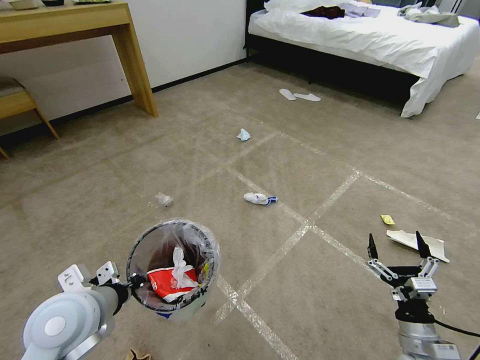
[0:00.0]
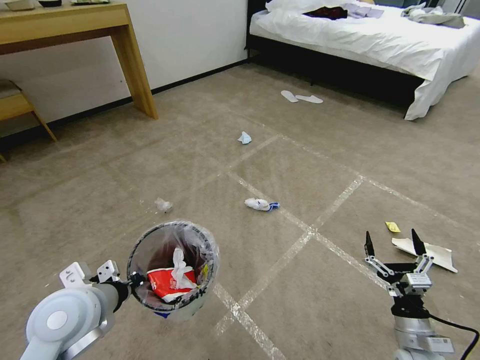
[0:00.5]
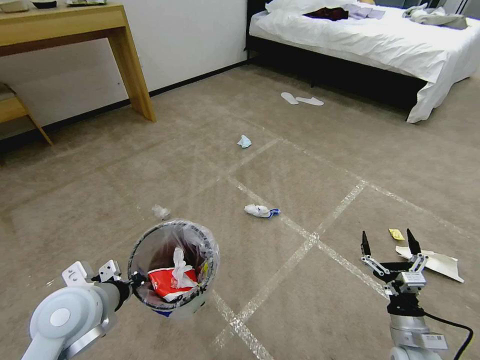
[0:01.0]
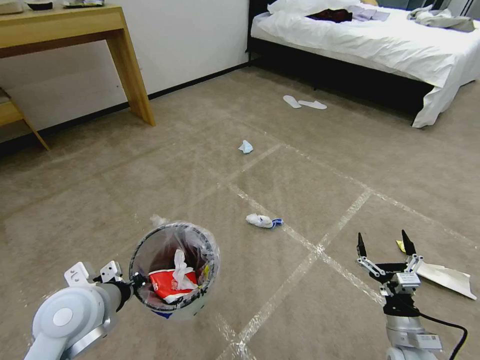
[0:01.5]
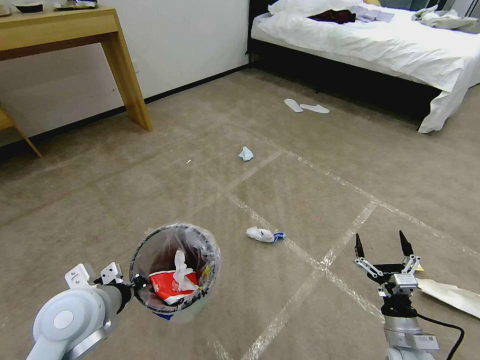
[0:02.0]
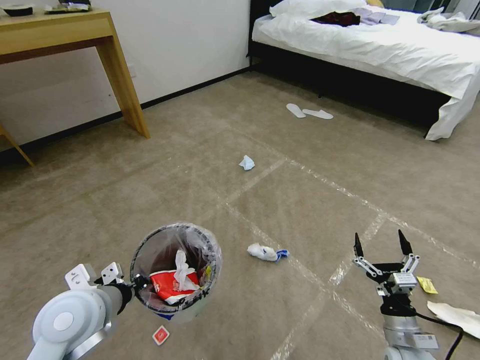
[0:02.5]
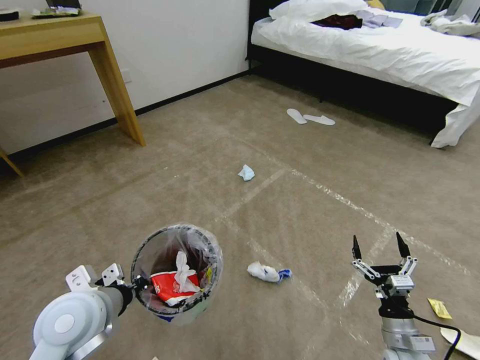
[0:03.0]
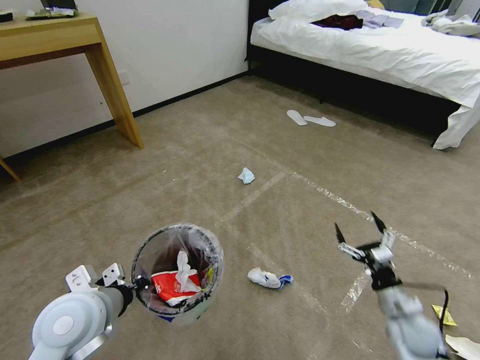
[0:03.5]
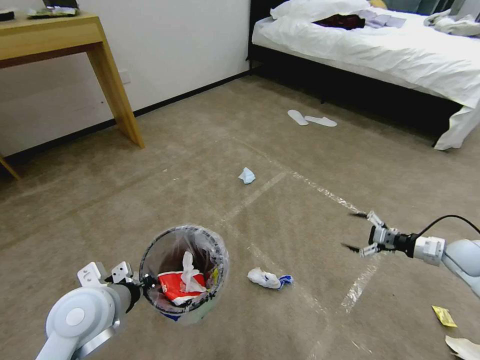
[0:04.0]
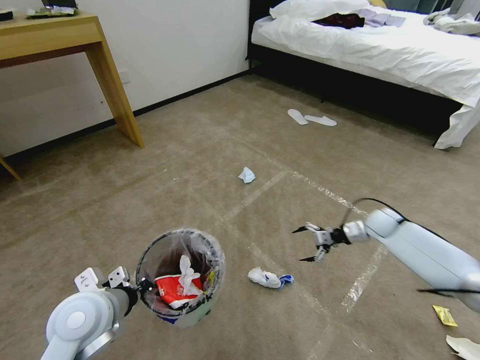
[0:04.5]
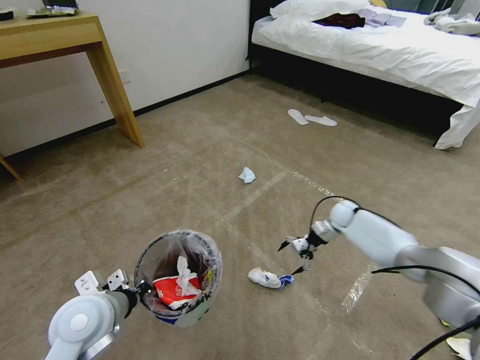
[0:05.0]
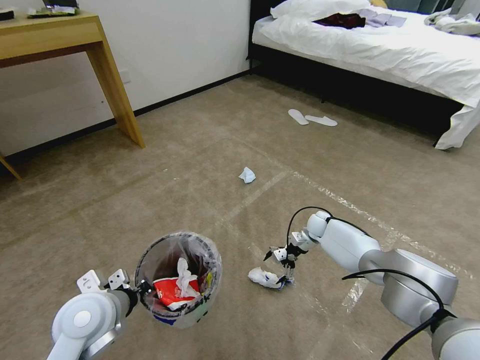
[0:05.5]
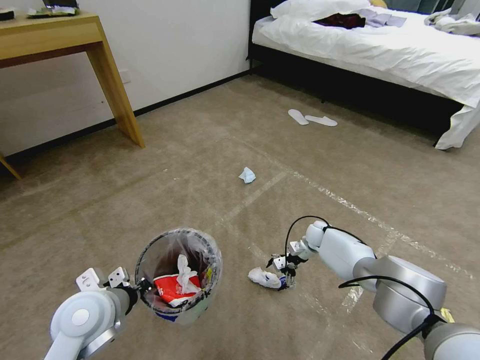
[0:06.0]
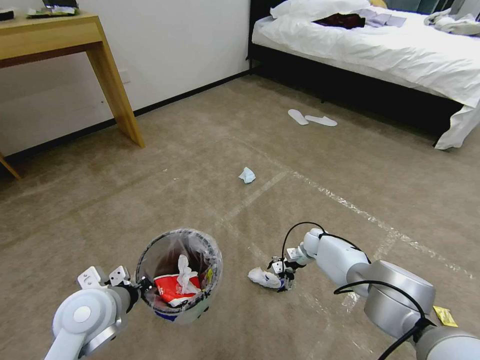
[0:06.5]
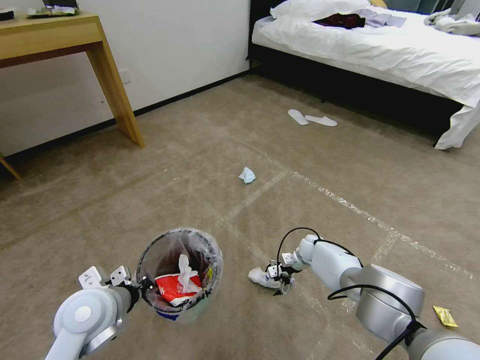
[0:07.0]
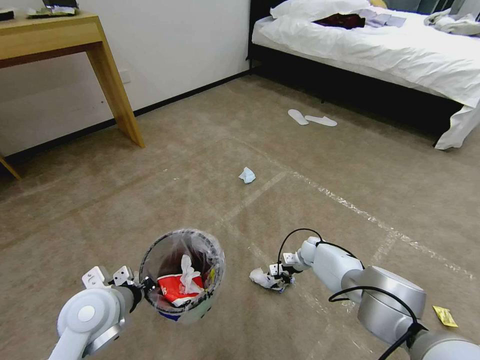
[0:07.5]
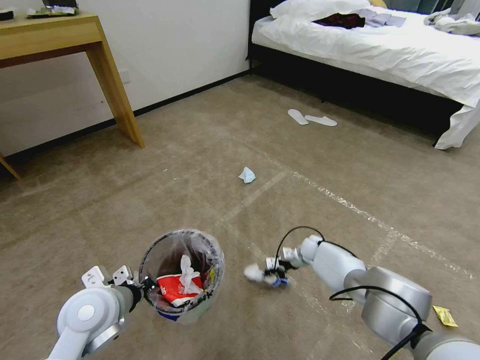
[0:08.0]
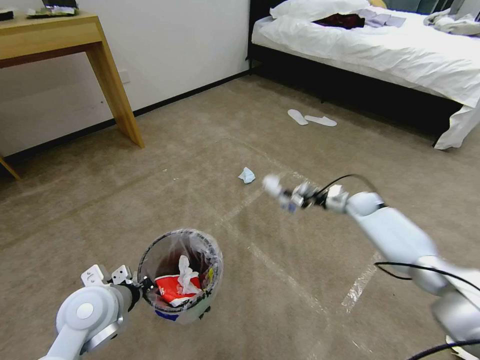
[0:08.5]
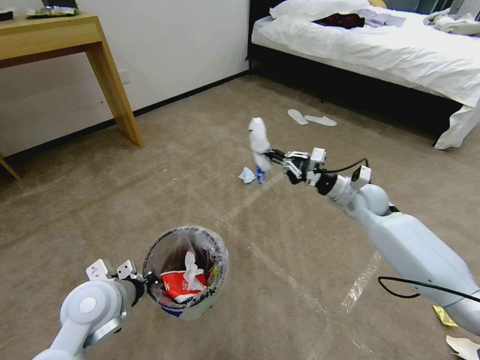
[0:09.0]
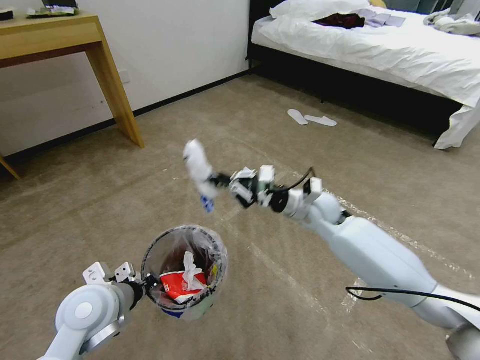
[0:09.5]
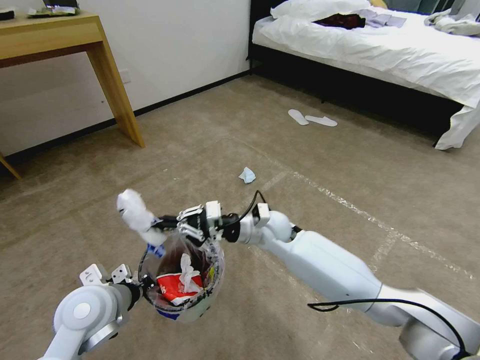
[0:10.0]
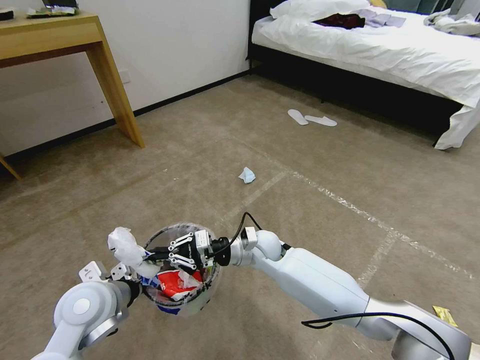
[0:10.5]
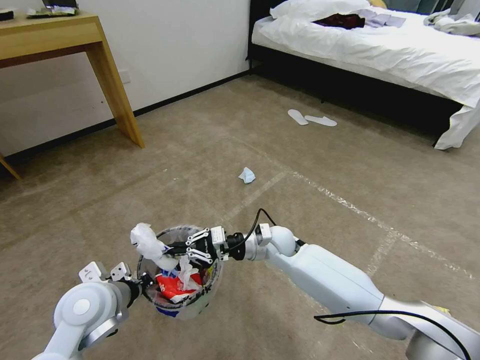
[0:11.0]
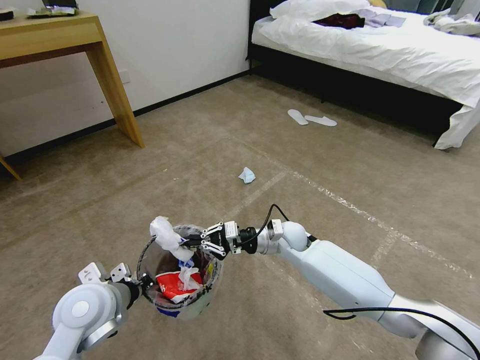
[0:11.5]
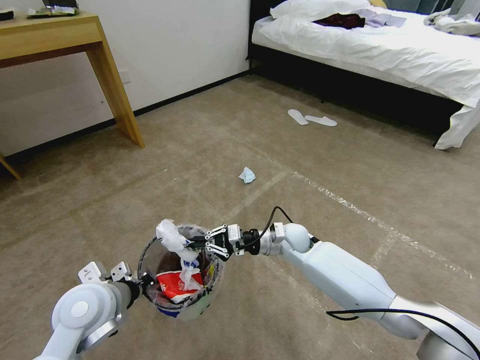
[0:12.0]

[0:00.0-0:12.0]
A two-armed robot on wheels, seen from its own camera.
Task of the whole recording: Pick up the trash bin and place the garbage on the floor into it.
0:02.0 to 0:04.0: The right gripper shifts roughly 30 cm forward, to the right and upward.
0:04.0 to 0:06.0: The right gripper is displaced to the left, forward and downward by roughly 35 cm.
0:06.0 to 0:08.0: The right gripper closes.
0:08.0 to 0:10.0: The right gripper travels upward and to the left by approximately 30 cm.
0:10.0 to 0:12.0: The right gripper moves to the right and downward, about 10 cm.

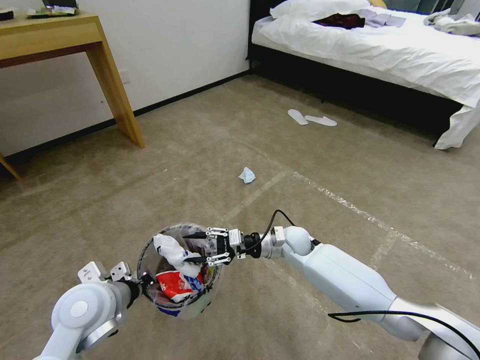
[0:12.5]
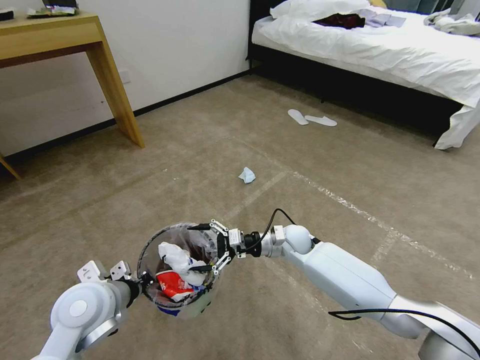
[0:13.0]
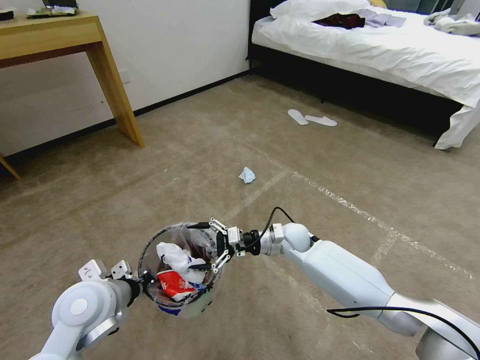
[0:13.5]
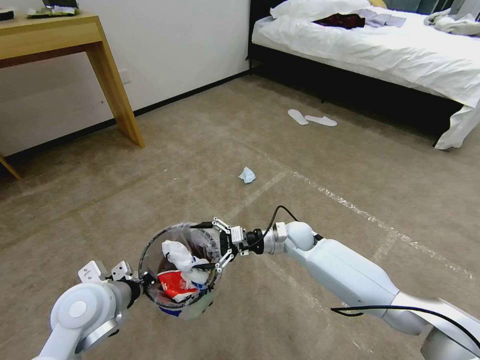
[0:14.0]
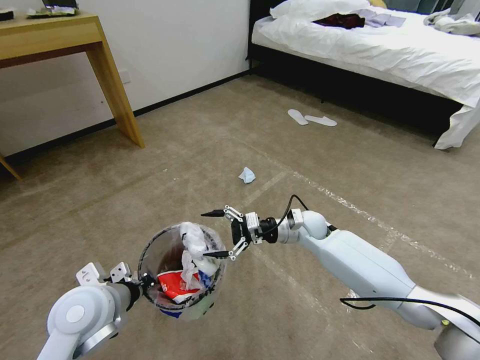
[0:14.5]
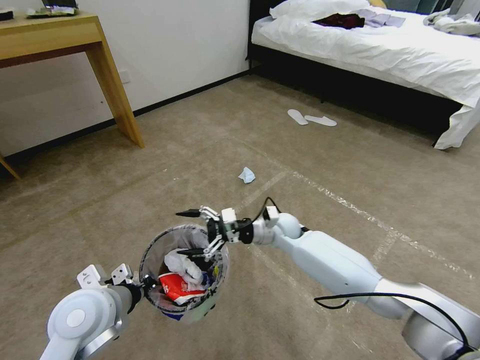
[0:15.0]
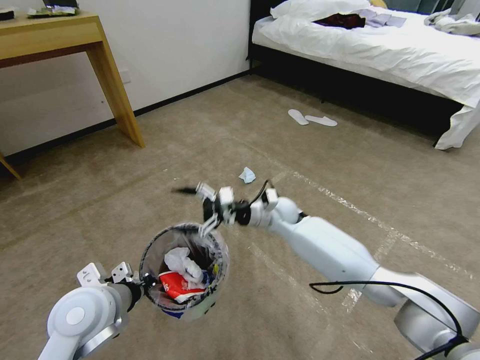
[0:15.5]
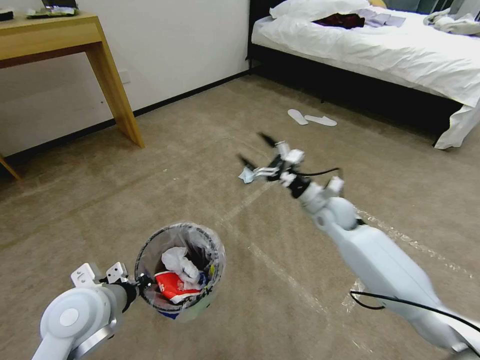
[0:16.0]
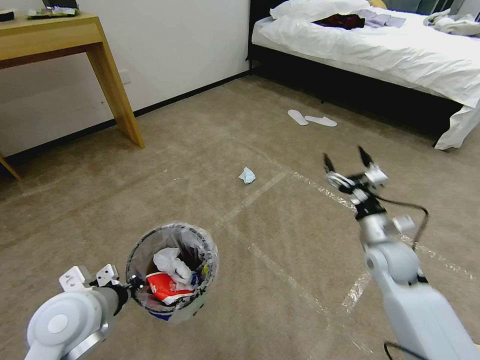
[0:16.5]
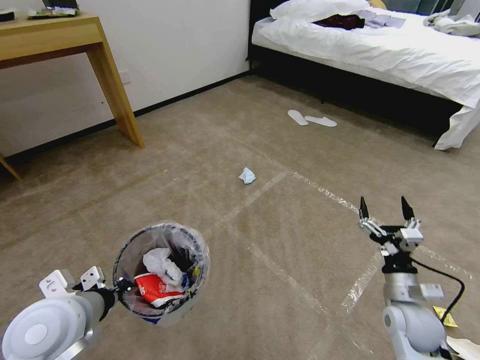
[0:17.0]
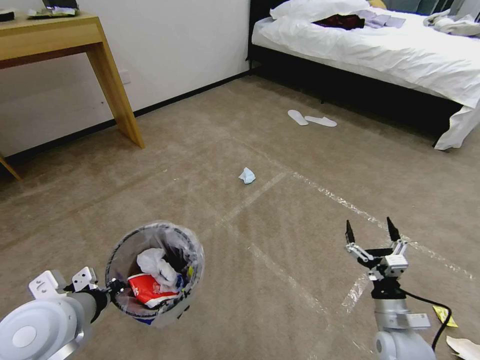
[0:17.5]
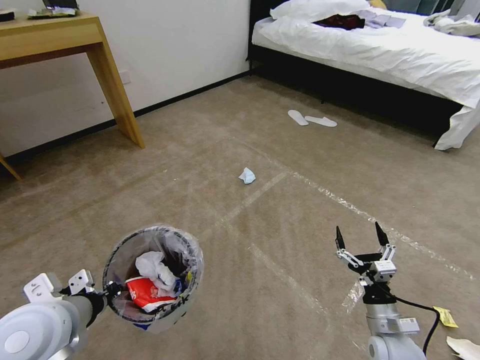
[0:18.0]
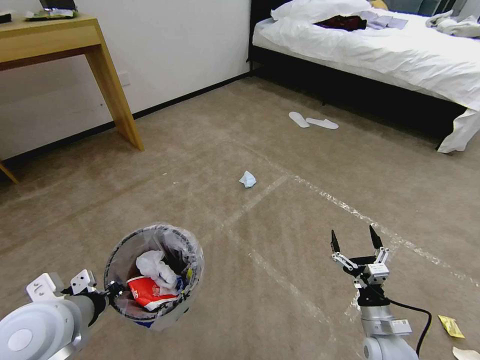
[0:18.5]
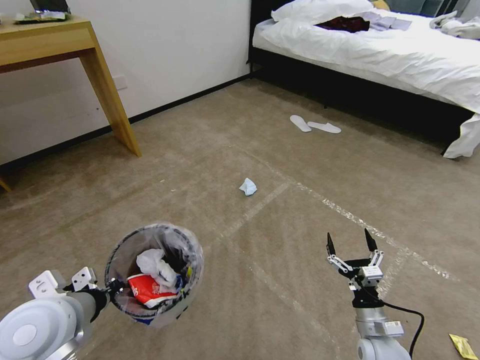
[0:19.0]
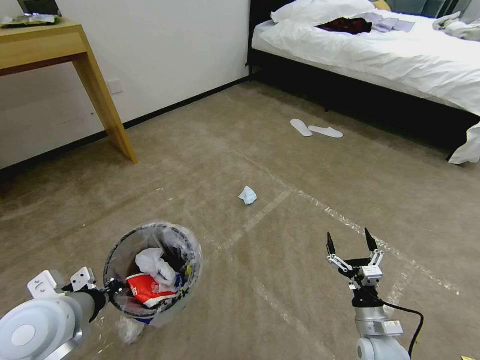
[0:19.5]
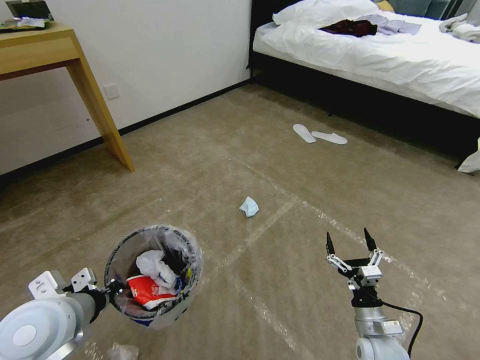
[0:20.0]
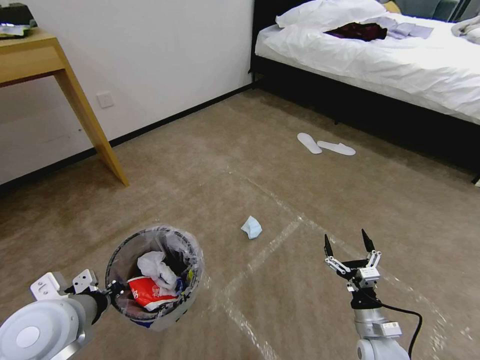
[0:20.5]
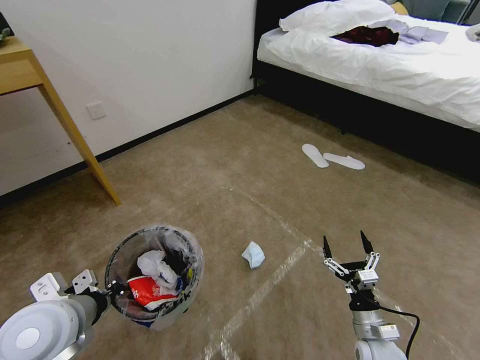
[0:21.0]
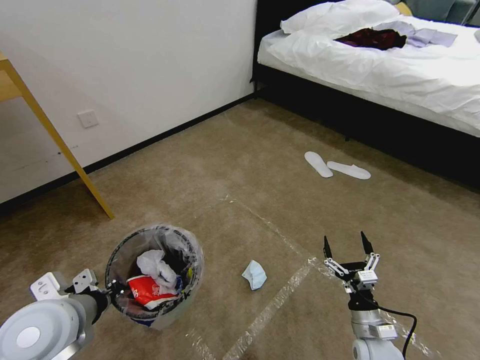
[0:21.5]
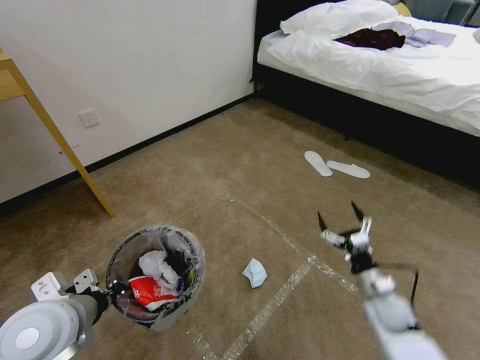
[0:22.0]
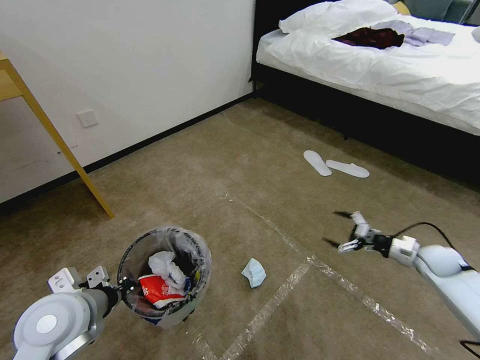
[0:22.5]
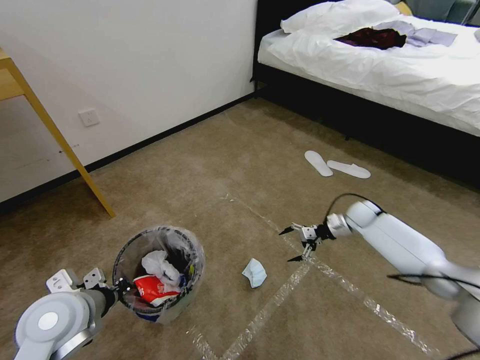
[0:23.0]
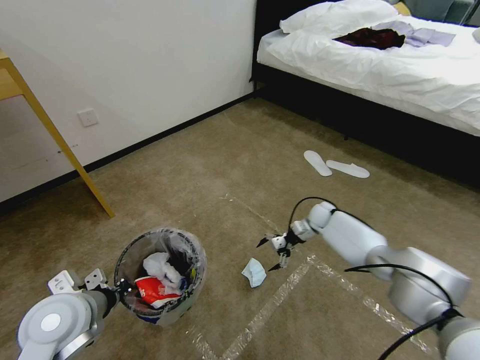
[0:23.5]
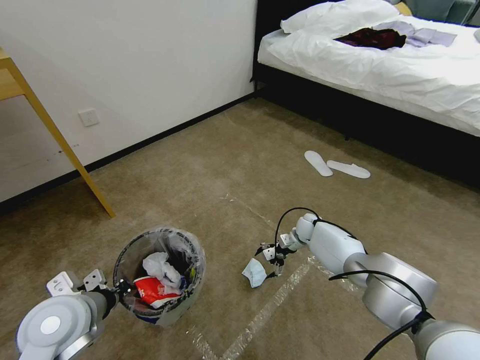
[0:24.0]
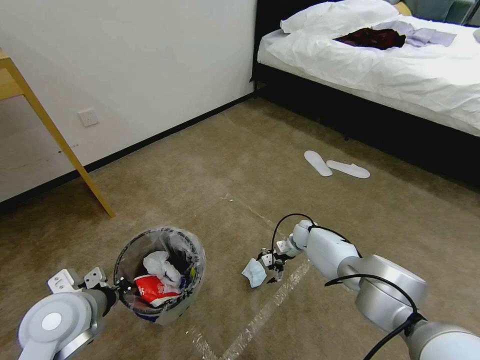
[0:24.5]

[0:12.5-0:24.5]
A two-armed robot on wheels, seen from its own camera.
Task of the whole recording: Pick up the trash bin and place the garbage on the floor into it.
0:12.5 to 0:14.5: The right gripper ends up some 5 cm from where it was, and opens its fingers.
0:14.5 to 0:16.5: The right gripper is displaced to the right and backward by some 20 cm.
0:16.5 to 0:18.5: The right gripper shifts some 20 cm backward and downward.
0:20.5 to 0:22.5: The right gripper goes some 30 cm to the right, forward and upward.
0:22.5 to 0:24.5: The right gripper goes about 30 cm to the left and forward.

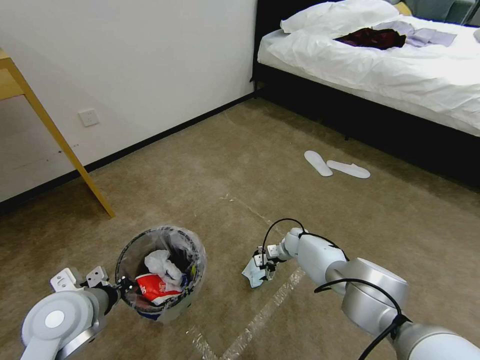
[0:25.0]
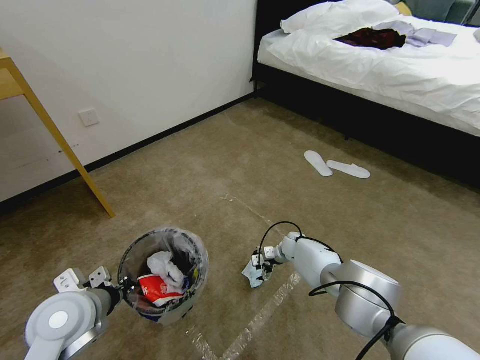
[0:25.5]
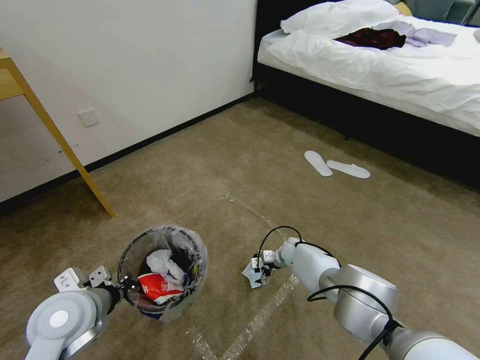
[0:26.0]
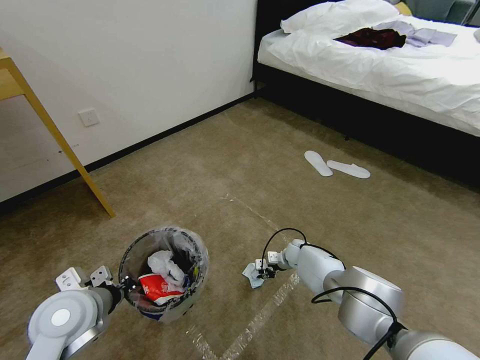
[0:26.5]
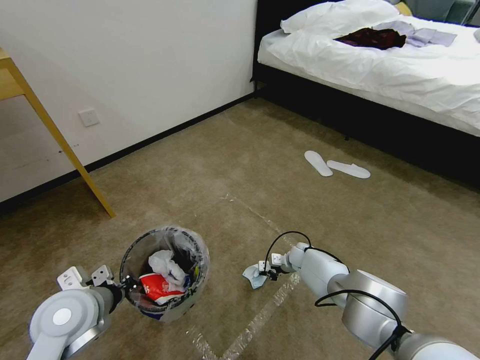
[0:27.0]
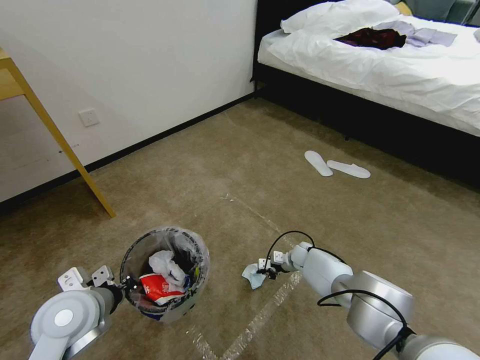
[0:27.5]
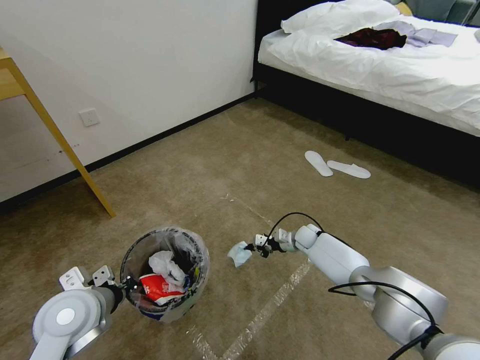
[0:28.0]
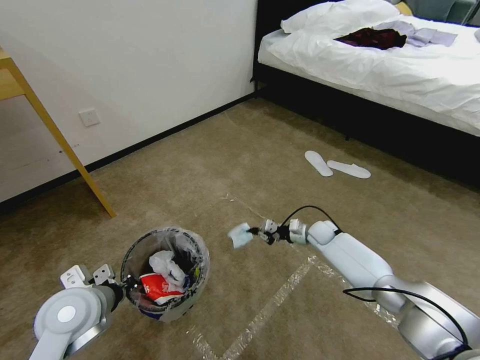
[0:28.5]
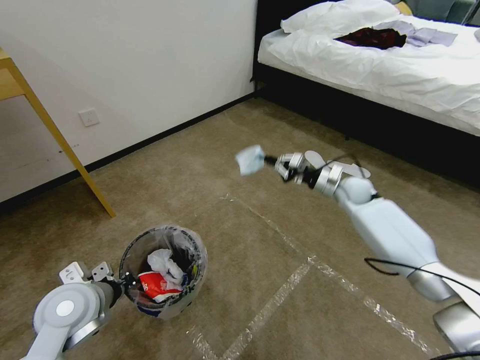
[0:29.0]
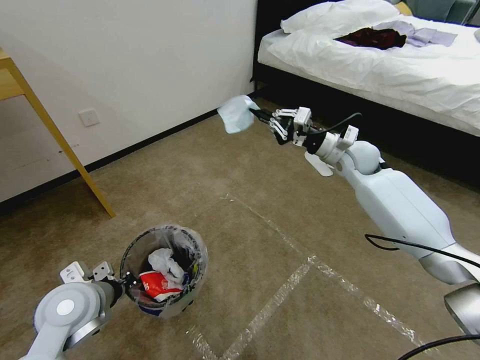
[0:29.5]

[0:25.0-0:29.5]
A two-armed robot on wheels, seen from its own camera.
Task of the whole recording: Pick up the trash bin and place the garbage on the floor into it.
0:25.0 to 0:27.0: The right gripper changes place by roughly 5 cm, and closes.
0:27.0 to 0:29.5: The right gripper heads upward, covering approximately 40 cm.
